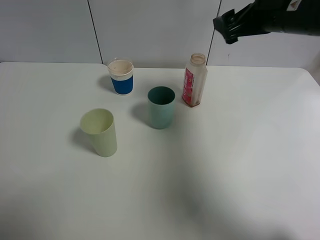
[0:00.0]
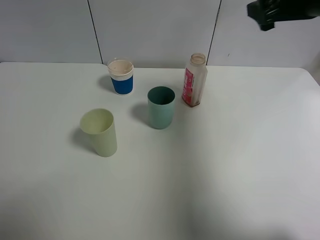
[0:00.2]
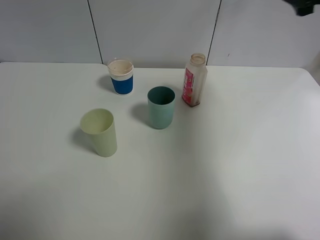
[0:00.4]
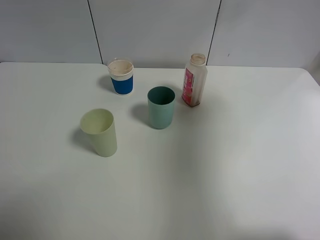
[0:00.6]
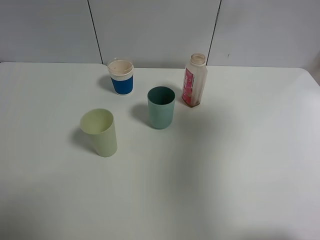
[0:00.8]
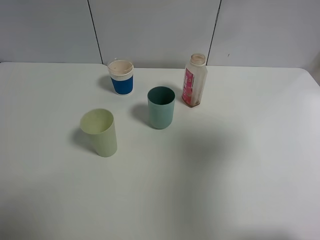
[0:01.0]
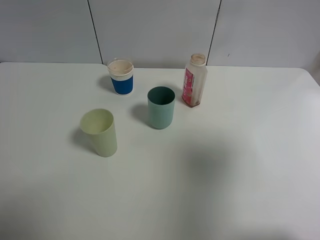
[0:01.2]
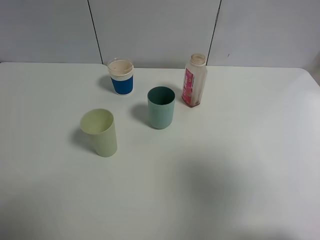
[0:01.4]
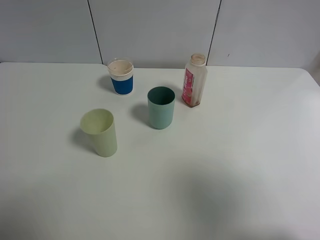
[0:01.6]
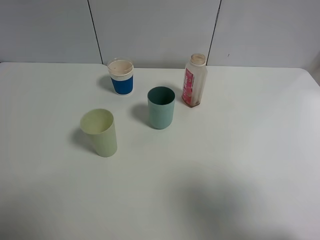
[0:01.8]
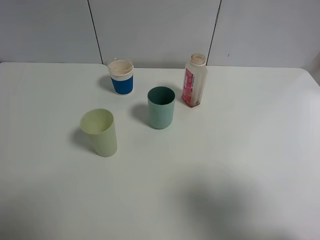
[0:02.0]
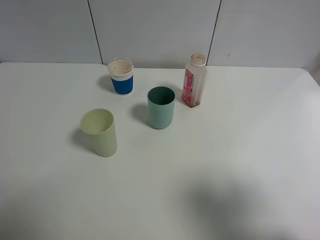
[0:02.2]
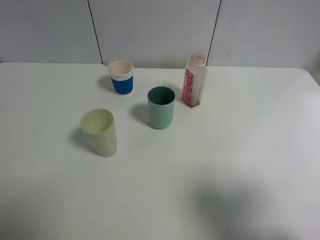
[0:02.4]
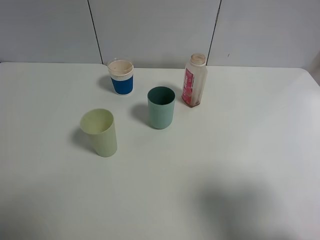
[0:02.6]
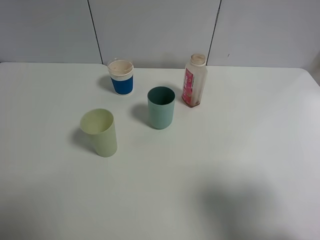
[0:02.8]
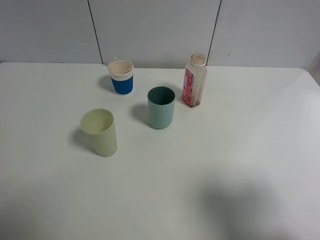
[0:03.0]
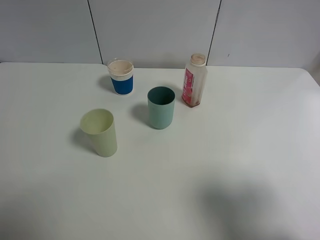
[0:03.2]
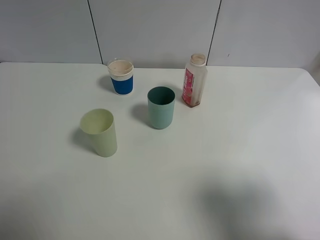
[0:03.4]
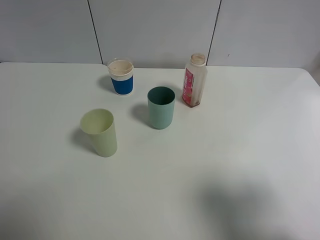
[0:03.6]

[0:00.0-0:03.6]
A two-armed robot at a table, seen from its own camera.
Task of the whole recording: use a gripper to hold the bottle of the drink and pour it into a random cup.
0:00.0 to 0:01.8: The right gripper shifts approximately 35 cm backward.
0:01.8 to 0:03.6: The right gripper heads downward, covering approximately 5 cm.
